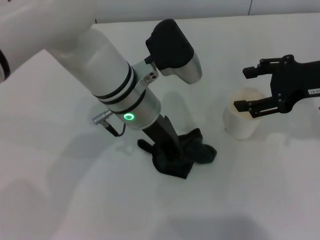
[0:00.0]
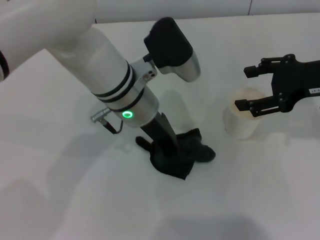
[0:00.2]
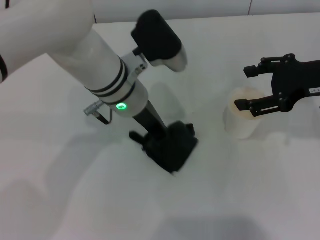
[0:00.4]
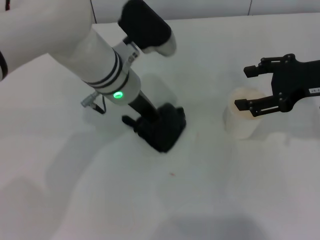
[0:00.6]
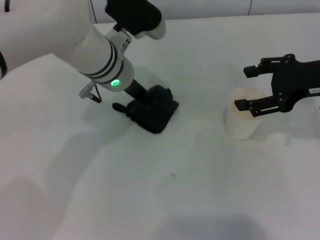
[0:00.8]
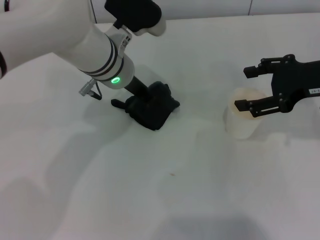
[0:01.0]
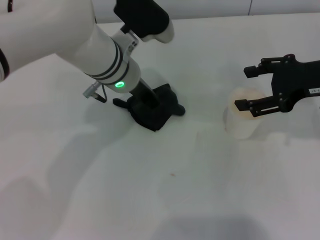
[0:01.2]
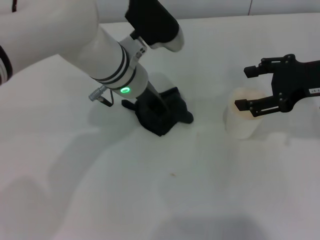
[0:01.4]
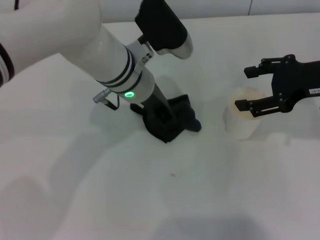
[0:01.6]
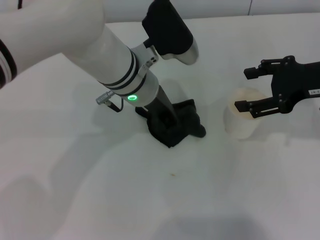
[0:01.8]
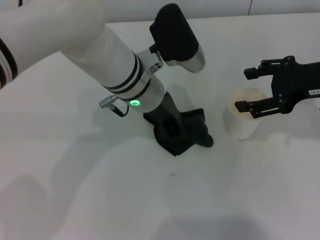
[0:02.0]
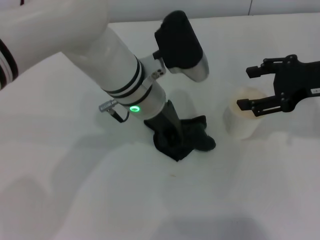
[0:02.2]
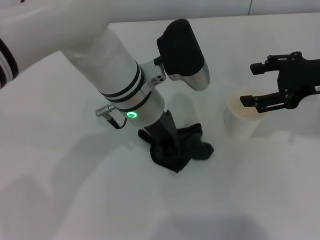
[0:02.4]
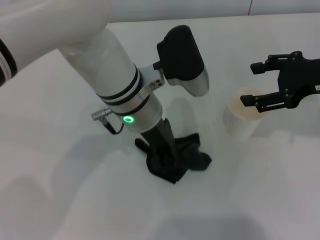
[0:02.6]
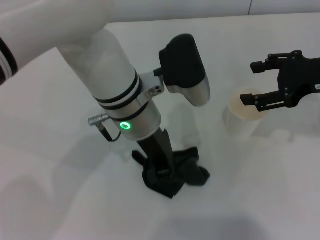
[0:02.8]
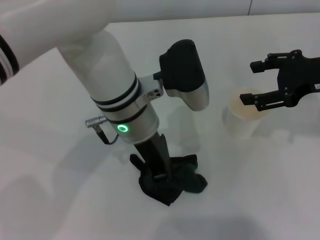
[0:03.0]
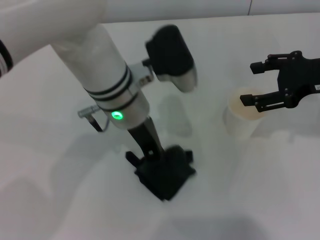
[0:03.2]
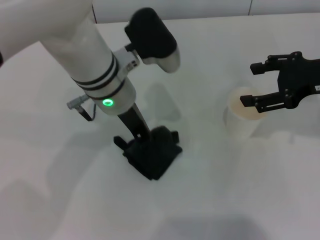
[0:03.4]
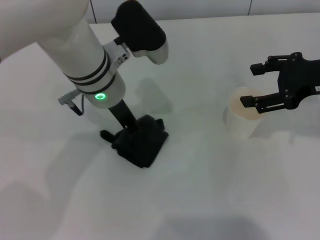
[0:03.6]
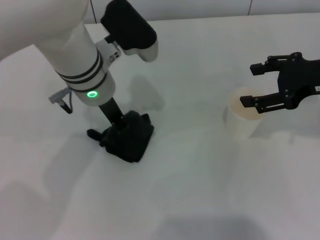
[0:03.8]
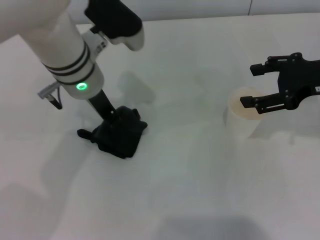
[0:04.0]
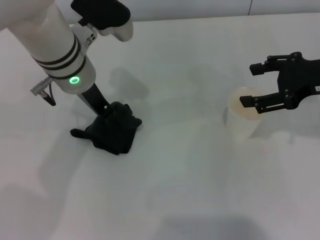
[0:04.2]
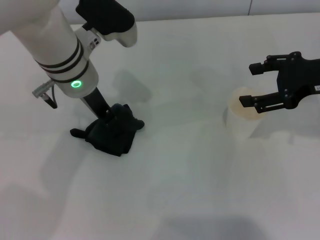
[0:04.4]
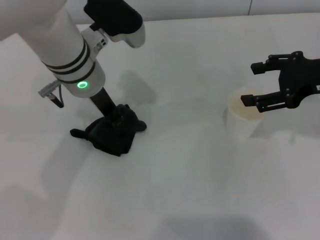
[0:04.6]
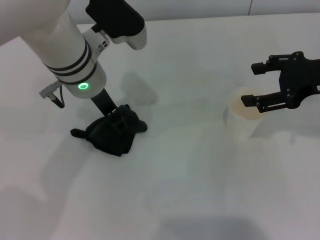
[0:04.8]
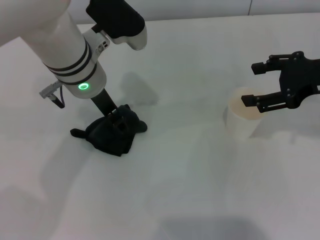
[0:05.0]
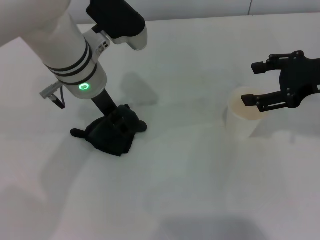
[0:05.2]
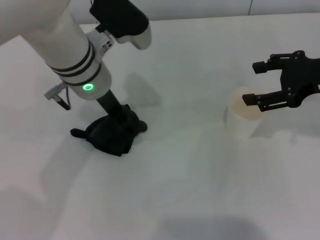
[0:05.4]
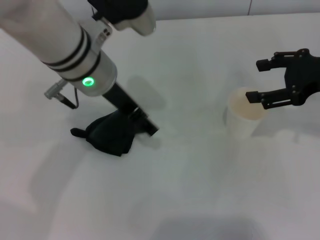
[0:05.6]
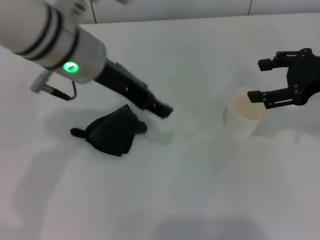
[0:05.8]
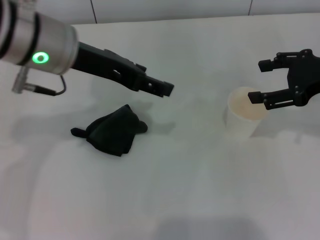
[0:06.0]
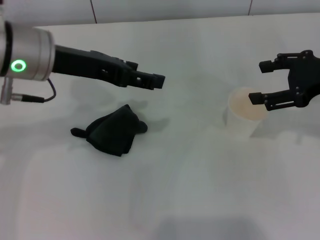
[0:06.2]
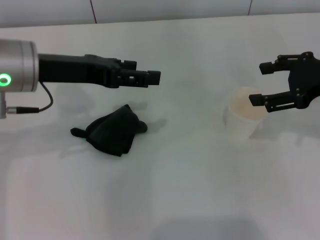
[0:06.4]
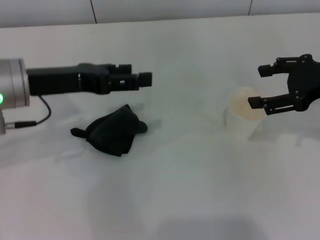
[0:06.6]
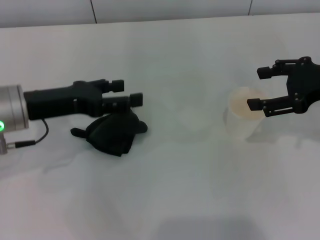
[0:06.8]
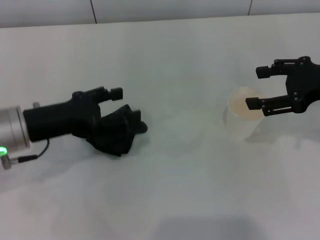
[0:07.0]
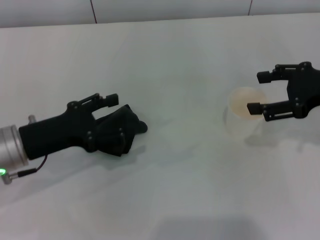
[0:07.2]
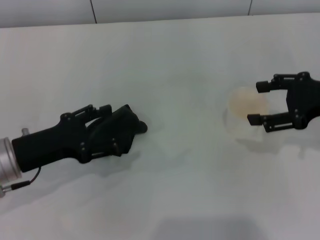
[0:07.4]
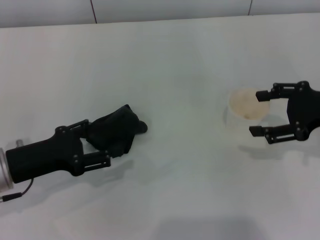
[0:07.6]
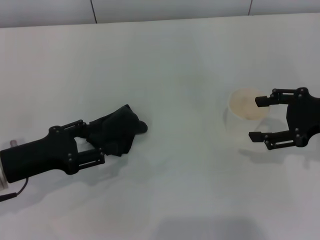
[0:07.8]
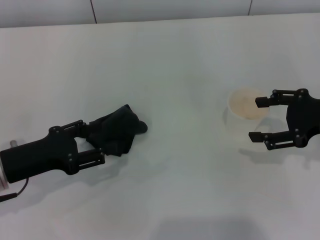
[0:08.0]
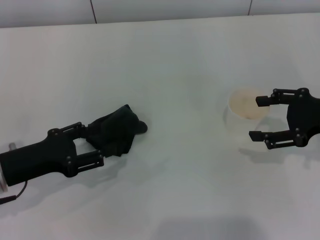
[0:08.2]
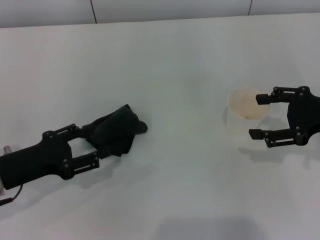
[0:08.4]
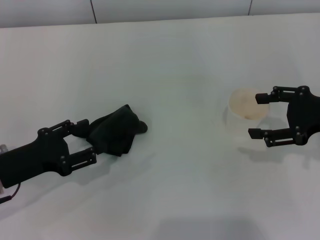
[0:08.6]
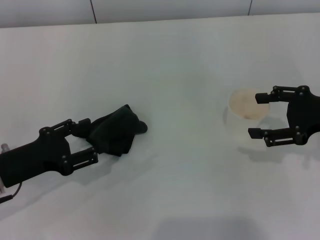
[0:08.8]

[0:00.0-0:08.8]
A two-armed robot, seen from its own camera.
Step, 0:00.0 to 0:04.6: Wipe the stains off the table with the left gripper.
Step, 0:04.8 to 0:05.8: Place the rag on the table with the left gripper.
0:01.4 to 0:03.0: The left gripper moves backward, approximately 5 cm.
0:03.0 to 0:04.4: The left gripper is displaced to the left and forward by some 10 cm.
0:04.4 to 0:05.8: The left gripper heads upward, covering approximately 5 cm, and opens up.
0:05.8 to 0:07.4: The left gripper moves downward, to the left and backward, roughly 20 cm.
0:07.4 to 0:08.8: The grippers move only a little.
